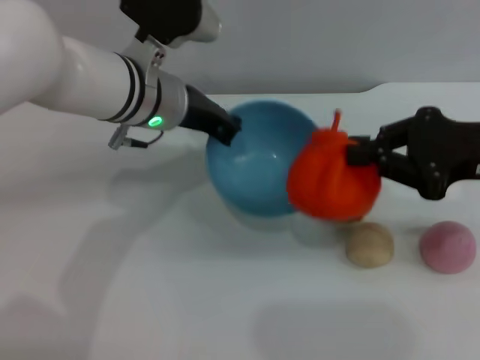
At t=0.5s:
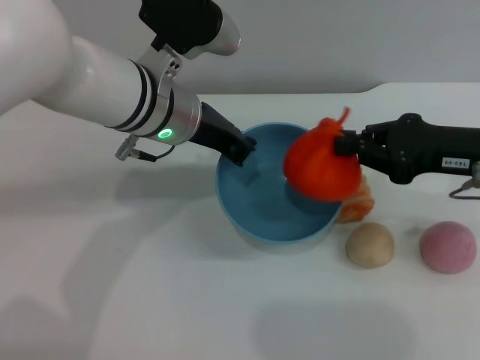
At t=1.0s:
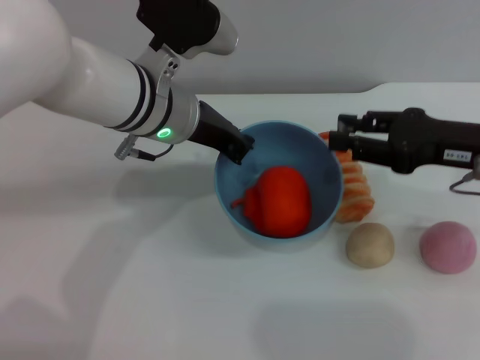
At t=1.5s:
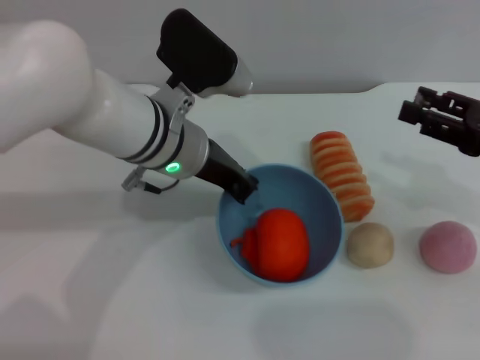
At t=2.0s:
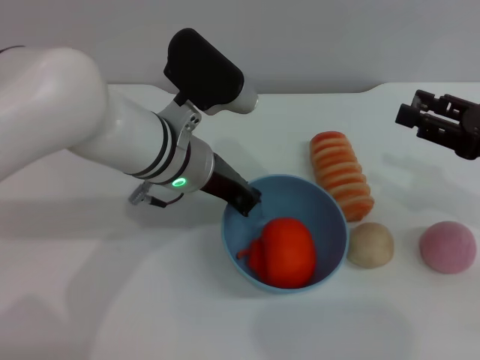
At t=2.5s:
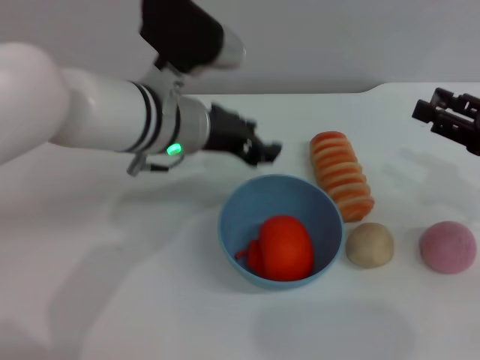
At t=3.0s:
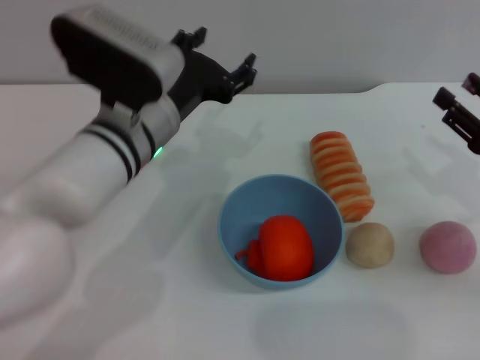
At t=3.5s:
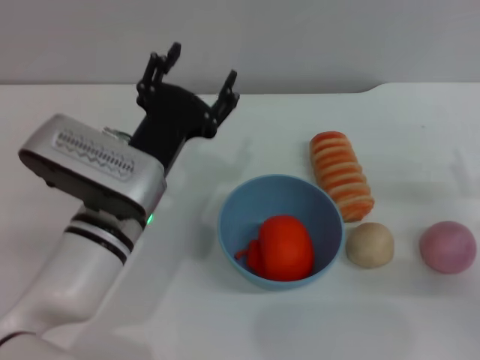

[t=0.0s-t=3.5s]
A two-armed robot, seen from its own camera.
Task of the whole recording: put the orange into the blue bowl and pour it out repeatedly.
Step, t=0.0s to t=1.0s: Place the orange into the bowl.
Step, t=1.5s to t=2.5s: Place the bowl on the table.
t=0.0s to t=2.0s: The left gripper moves approximately 5 cm, while the right gripper heads downward, covering roughly 5 cm, and opens its fingers.
t=2.0s to t=3.5s: The right gripper goes about 10 cm downward. Meanwhile the left gripper heads backward, covering some 5 cm, and opens its fingers.

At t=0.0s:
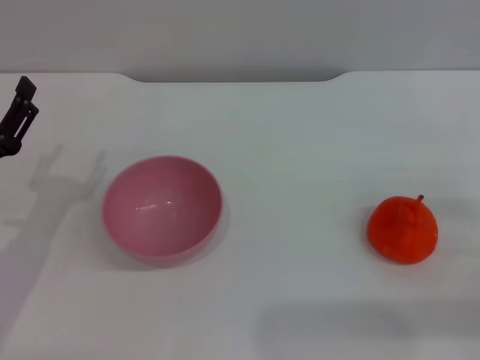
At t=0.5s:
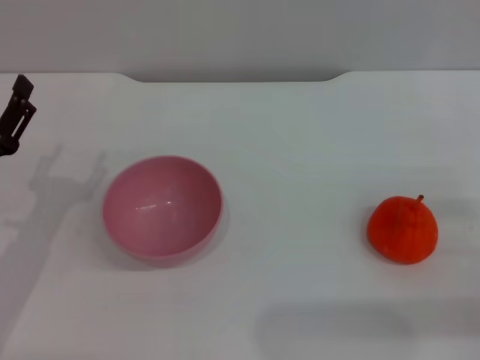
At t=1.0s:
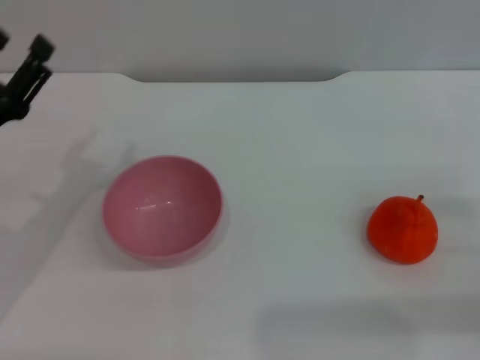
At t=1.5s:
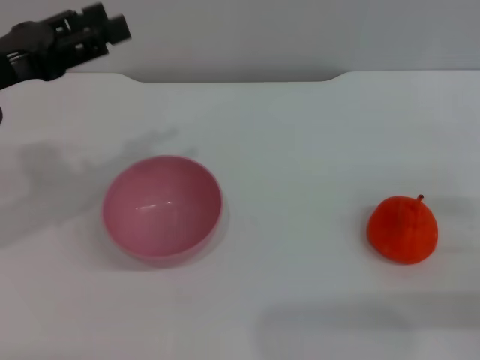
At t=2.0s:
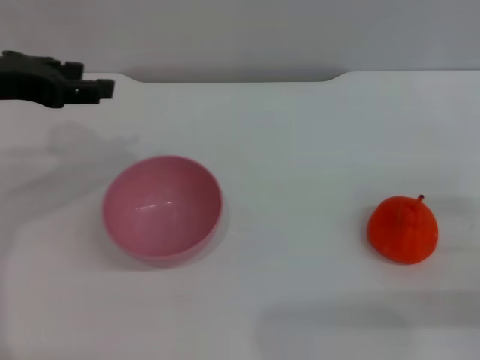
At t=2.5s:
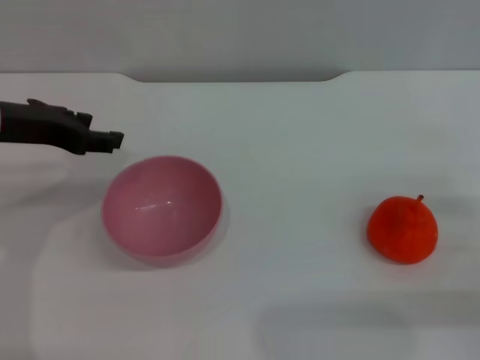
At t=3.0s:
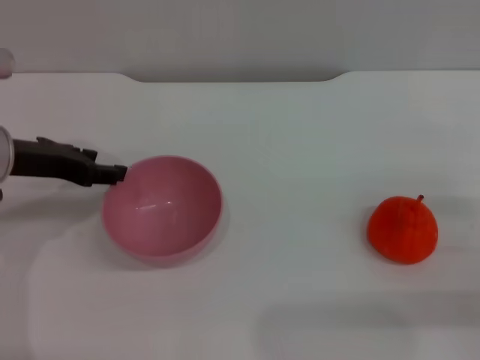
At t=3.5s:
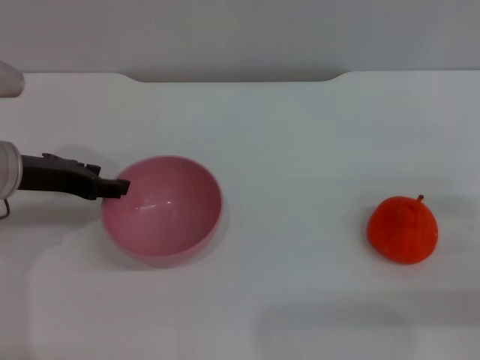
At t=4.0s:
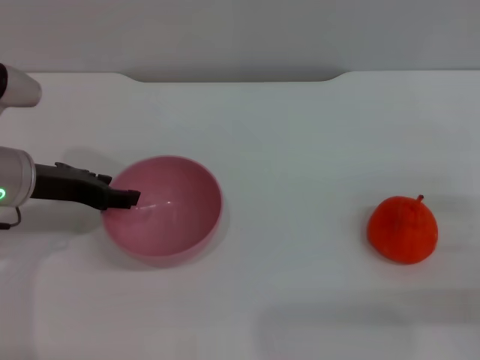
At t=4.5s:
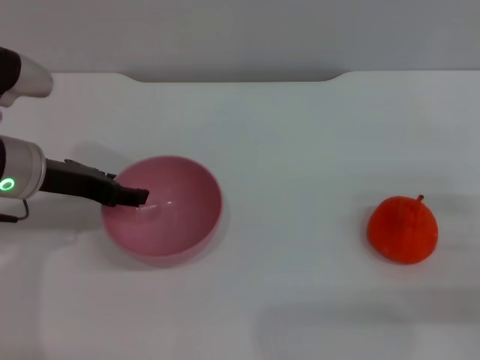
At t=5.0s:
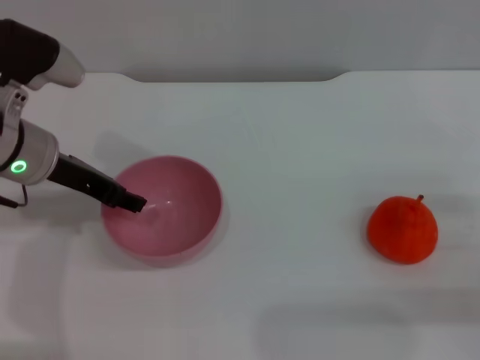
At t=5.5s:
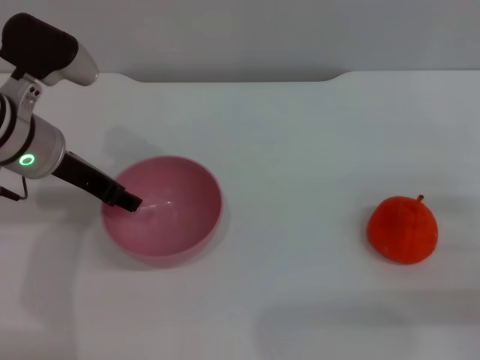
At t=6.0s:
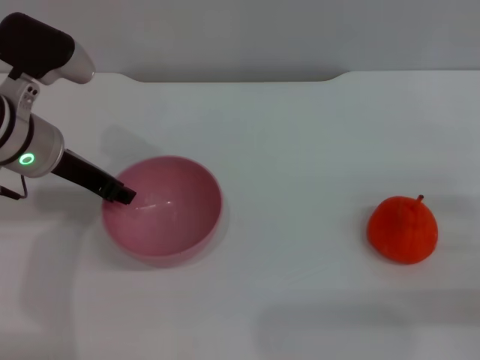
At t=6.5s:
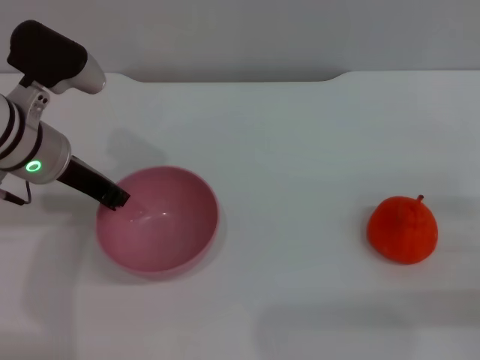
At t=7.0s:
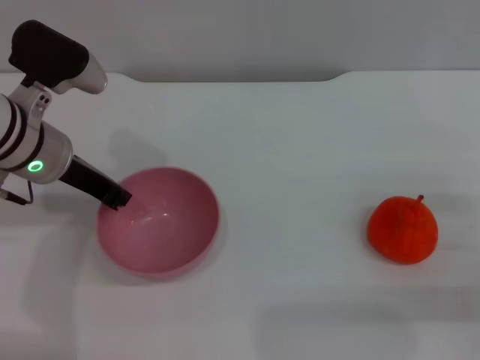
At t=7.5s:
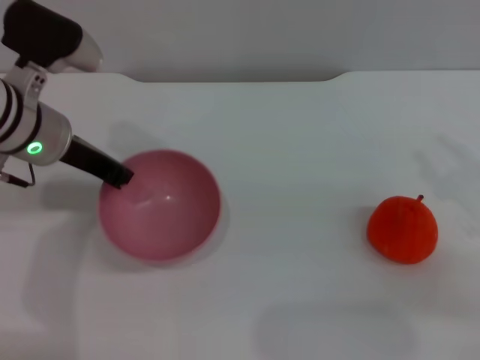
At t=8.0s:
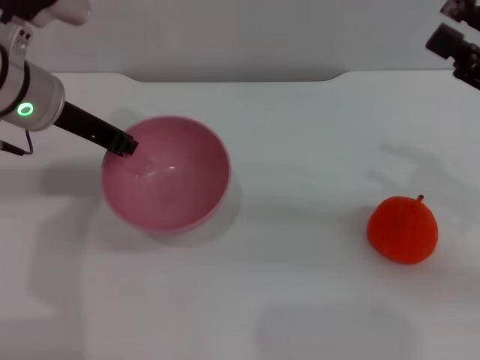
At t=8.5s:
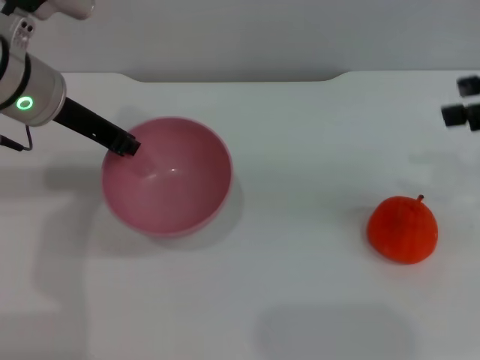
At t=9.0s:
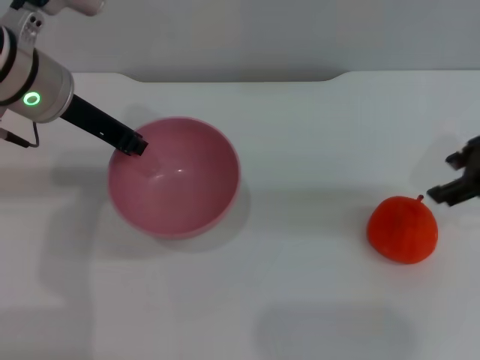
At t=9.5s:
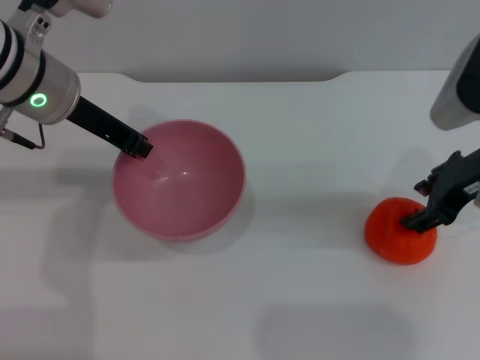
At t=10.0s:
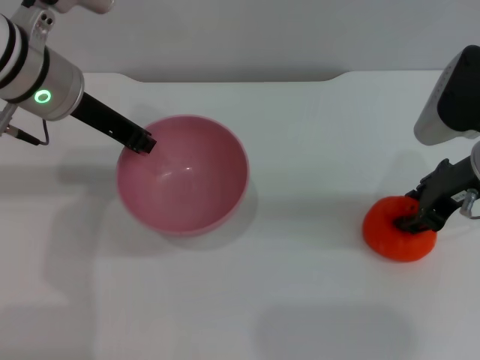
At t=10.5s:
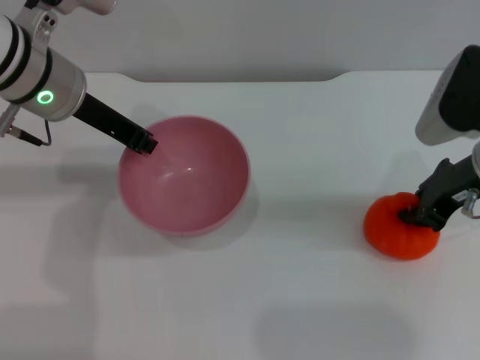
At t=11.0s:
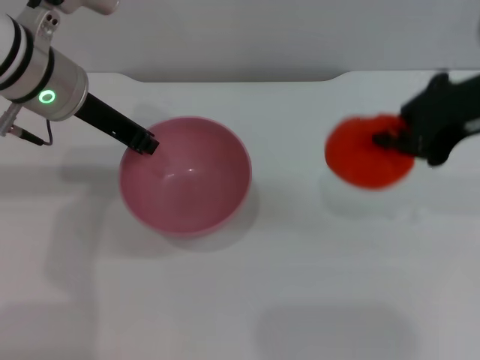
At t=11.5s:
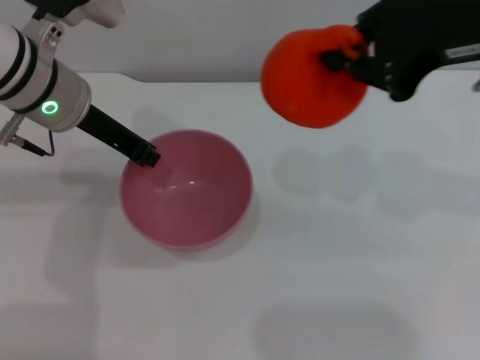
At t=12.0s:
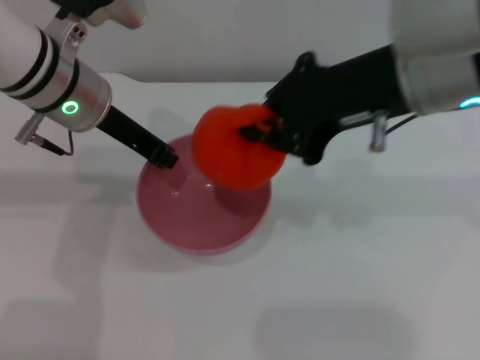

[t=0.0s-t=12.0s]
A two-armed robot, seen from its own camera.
Task of the whole recording: put the orange into the pink bowl and pour it out repeatedly.
Step, t=0.0s to t=8.5s: Pick up the bowl with the left gripper.
Step, t=9.0s to t=11.0s: Pick up the orange with the right gripper.
t=0.0s to t=2.0s: The left gripper travels upward and forward by approximately 20 cm.
t=2.0s to t=4.0s: The left gripper heads downward, covering about 10 cm.
t=4.0s to t=6.0s: The left gripper moves some 5 cm.
t=6.0s to t=8.0s: The left gripper closes, while the right gripper shifts about 15 cm upward and forward.
t=8.0s to t=10.0s: The right gripper is displaced to the left and forward by roughly 10 cm, and moves about 10 cm upward and comes back.
t=10.0s to t=12.0s: The right gripper is displaced upward and to the left by about 15 cm, and closes up.

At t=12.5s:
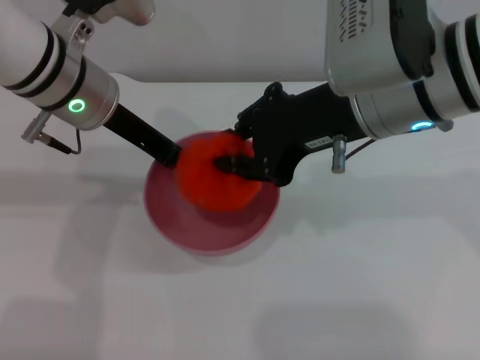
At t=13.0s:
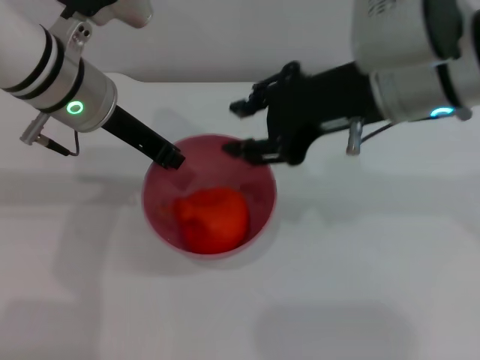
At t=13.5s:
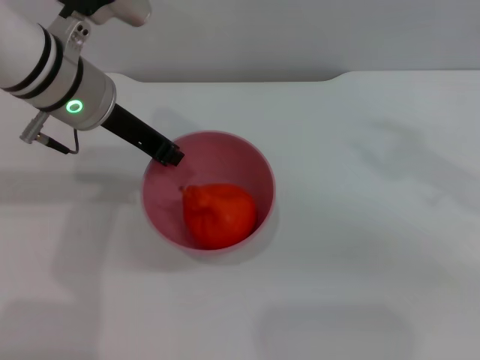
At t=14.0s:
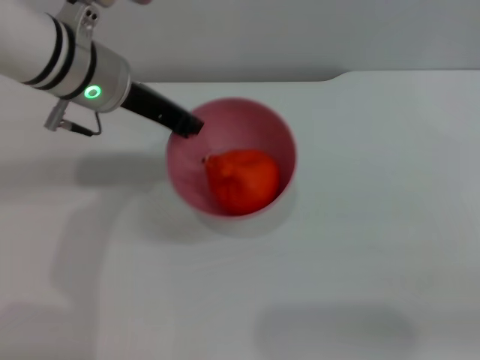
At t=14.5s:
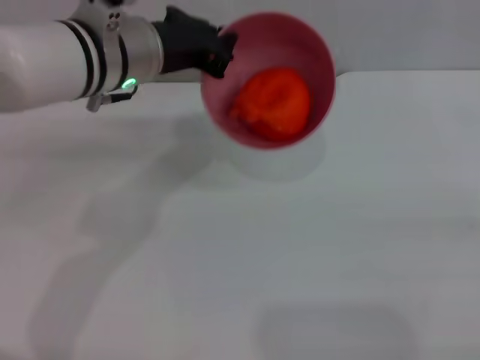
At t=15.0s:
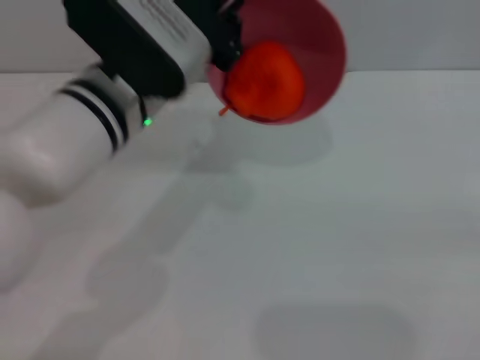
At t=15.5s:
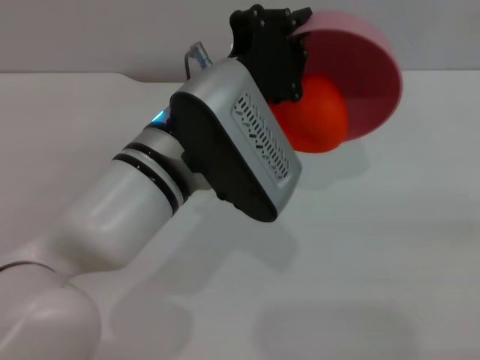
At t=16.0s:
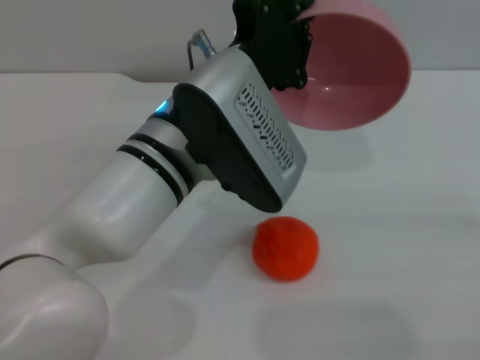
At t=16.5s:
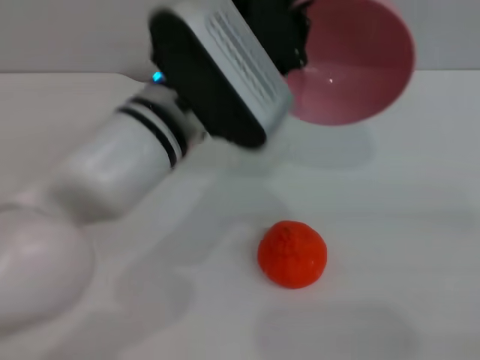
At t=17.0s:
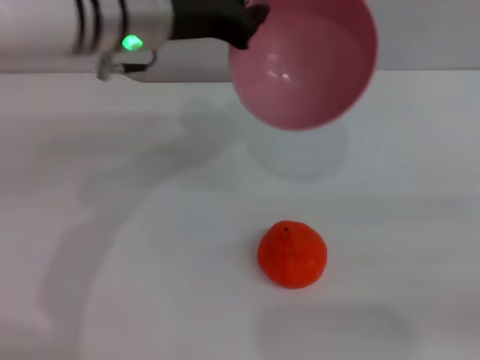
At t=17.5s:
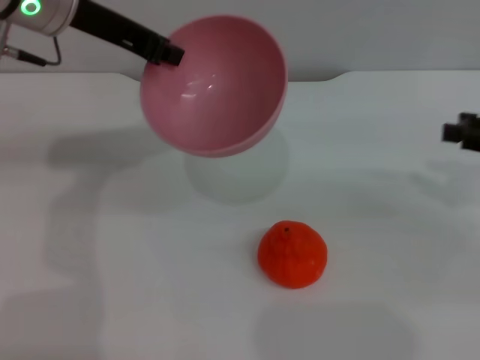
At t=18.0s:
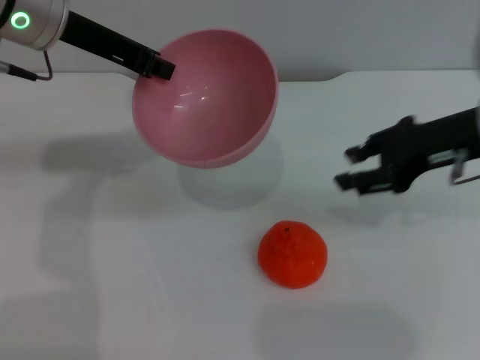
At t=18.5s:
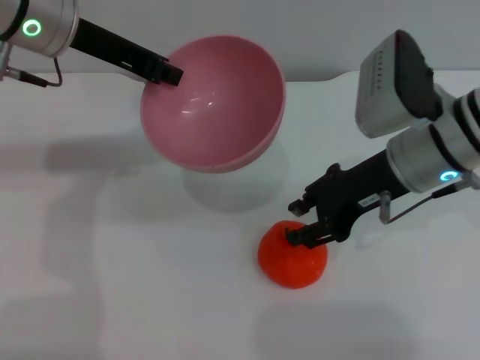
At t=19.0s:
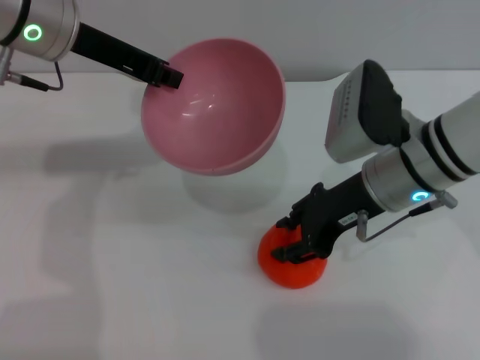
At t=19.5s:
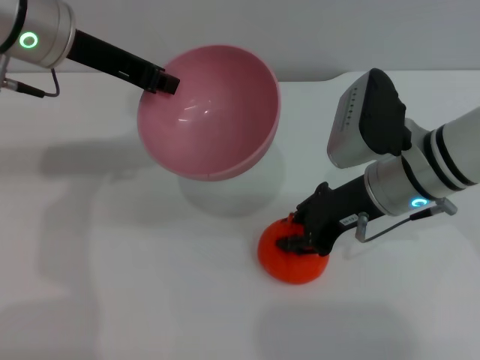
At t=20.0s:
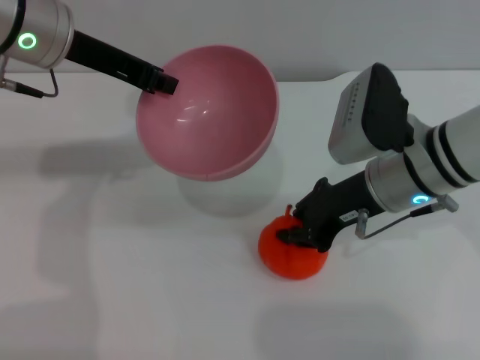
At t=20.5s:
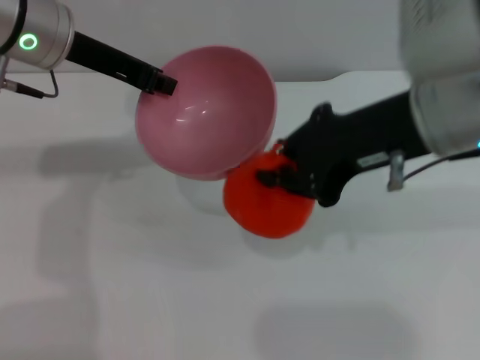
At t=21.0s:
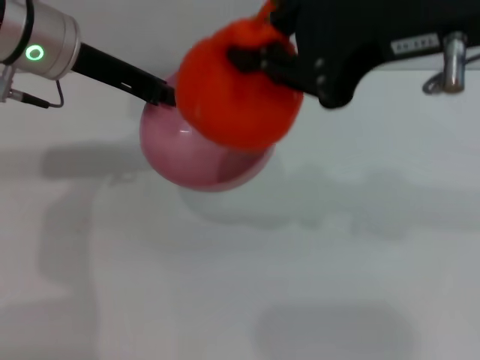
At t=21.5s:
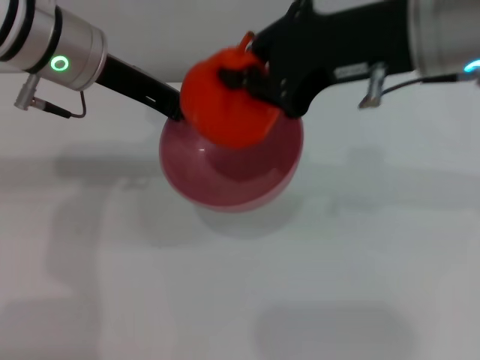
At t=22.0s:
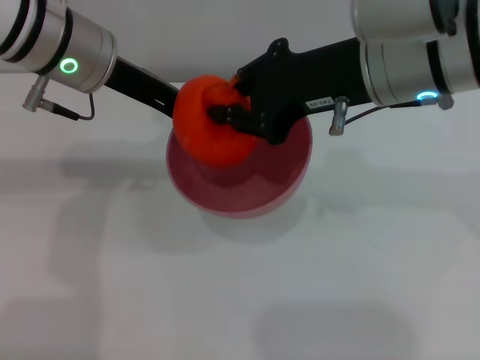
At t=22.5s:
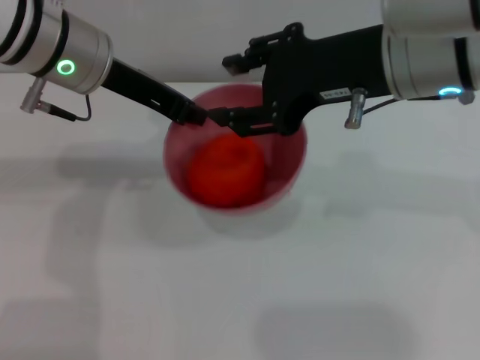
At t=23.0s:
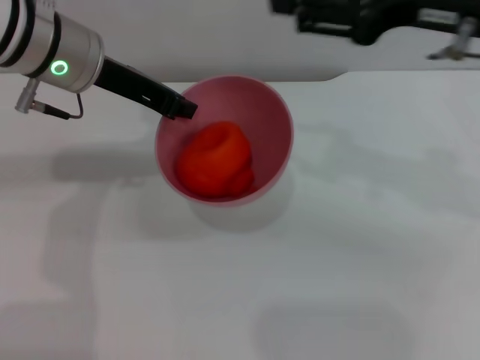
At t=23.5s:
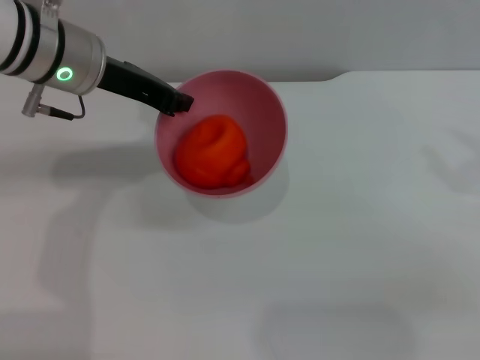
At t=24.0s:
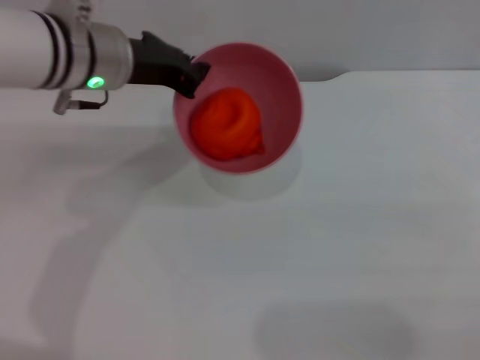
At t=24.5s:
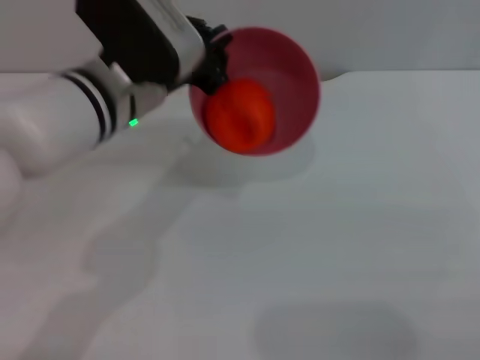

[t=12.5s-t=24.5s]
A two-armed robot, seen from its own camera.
Task of the whole recording: put the orange into the pink bowl and pour it out repeatedly.
Step, t=13.5s to t=16.0s: Pour the orange out of the bowl.
Step, t=16.5s to t=20.5s: Pick up the orange with the right gripper.
Step, t=21.0s to t=22.5s: Place the orange into the bowl.
t=12.5s to t=14.5s: The right gripper moves to the right, backward and downward, some 35 cm, and opens up.
t=14.5s to t=16.5s: The left gripper travels backward and to the right by roughly 10 cm.
t=16.5s to t=18.5s: The left gripper heads to the left, forward and upward, covering some 15 cm. Meanwhile the right gripper shifts some 25 cm to the left and forward.
t=18.5s to t=20.5s: The right gripper goes roughly 10 cm upward and backward, and closes.
t=20.5s to t=22.5s: The right gripper goes upward and returns, about 10 cm each way, and opens.
t=22.5s to t=24.5s: The right gripper shifts some 30 cm to the right, downward and backward, while the left gripper ends up approximately 5 cm from where it was.
